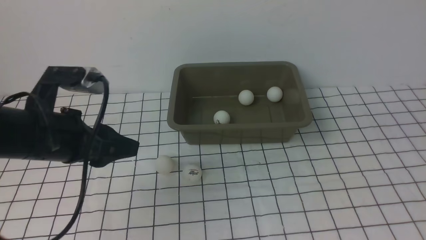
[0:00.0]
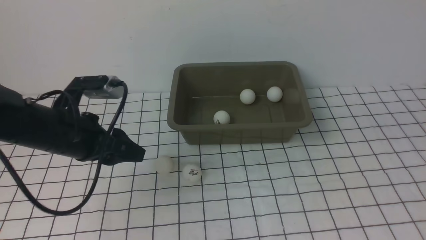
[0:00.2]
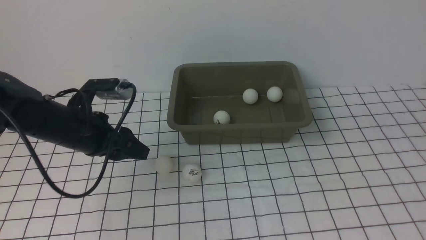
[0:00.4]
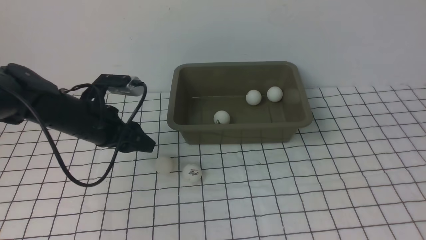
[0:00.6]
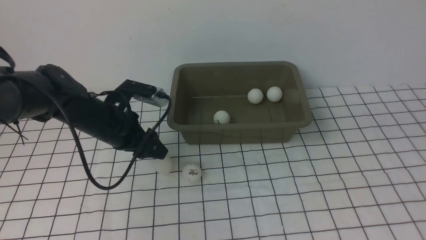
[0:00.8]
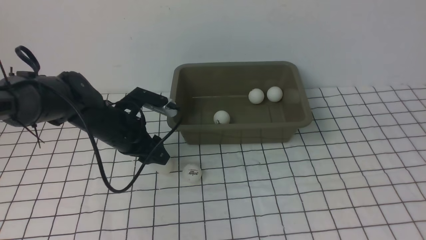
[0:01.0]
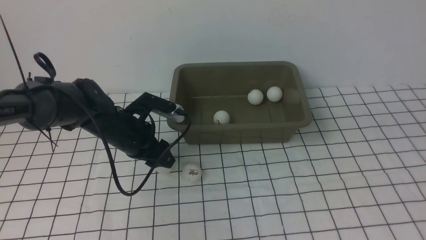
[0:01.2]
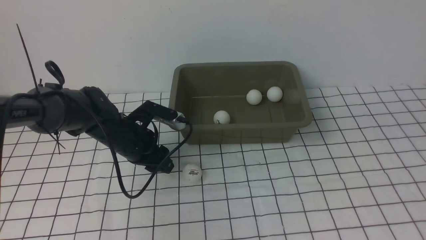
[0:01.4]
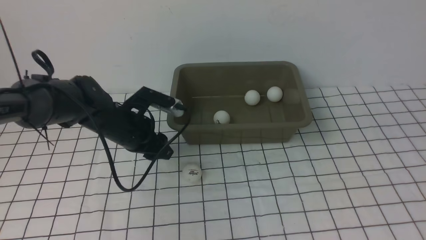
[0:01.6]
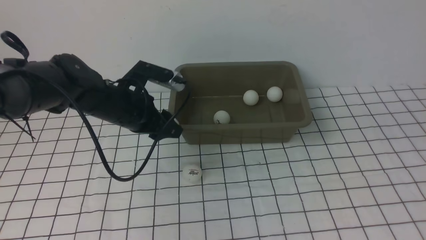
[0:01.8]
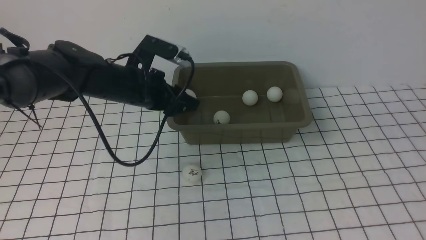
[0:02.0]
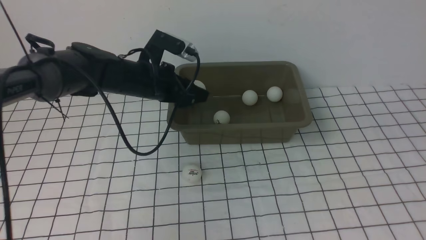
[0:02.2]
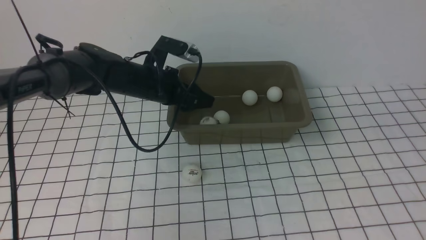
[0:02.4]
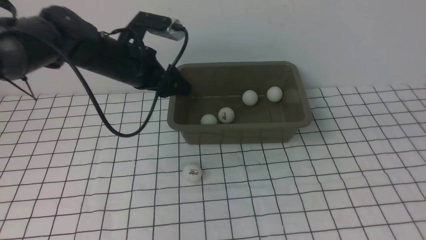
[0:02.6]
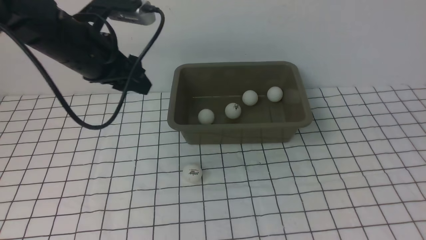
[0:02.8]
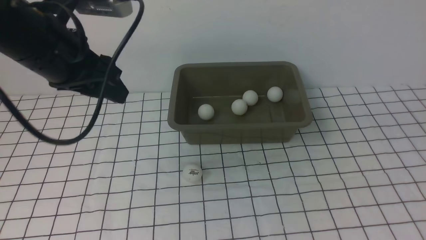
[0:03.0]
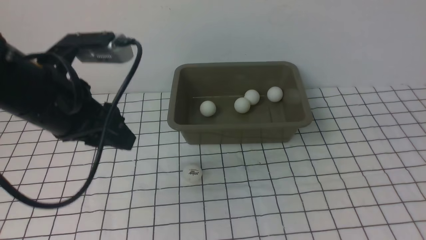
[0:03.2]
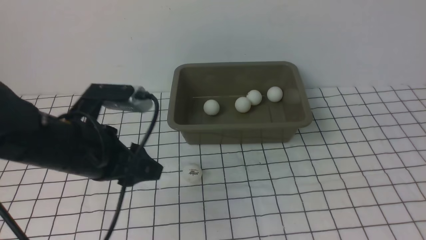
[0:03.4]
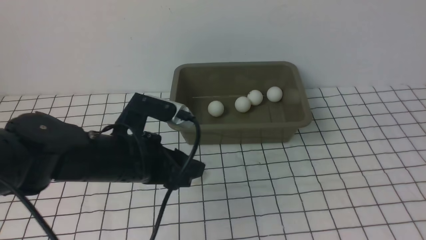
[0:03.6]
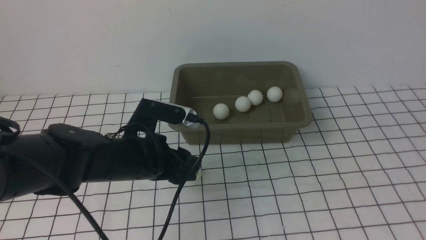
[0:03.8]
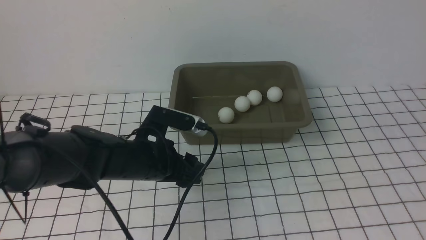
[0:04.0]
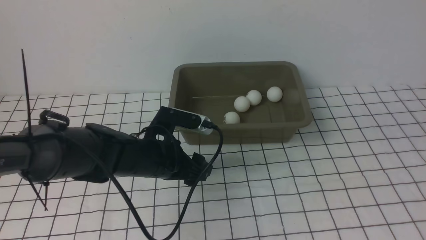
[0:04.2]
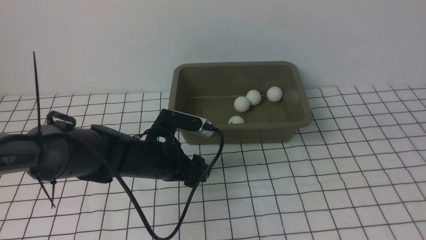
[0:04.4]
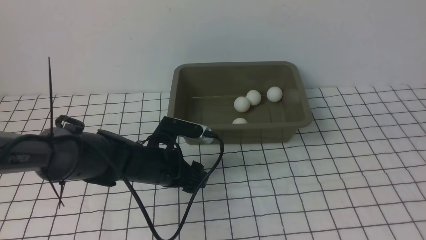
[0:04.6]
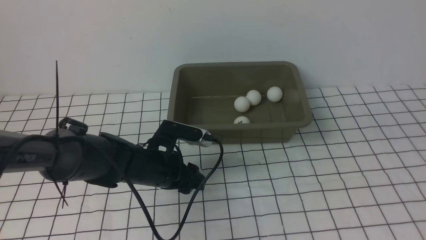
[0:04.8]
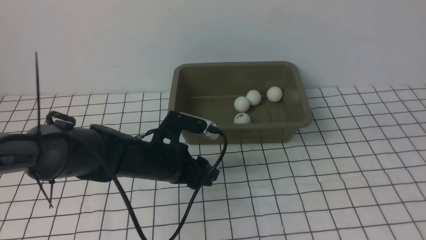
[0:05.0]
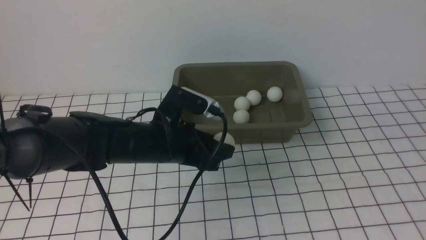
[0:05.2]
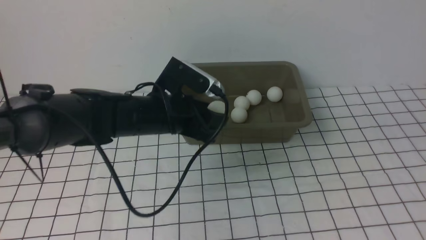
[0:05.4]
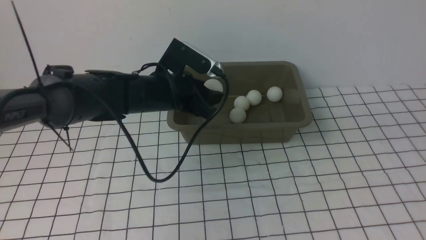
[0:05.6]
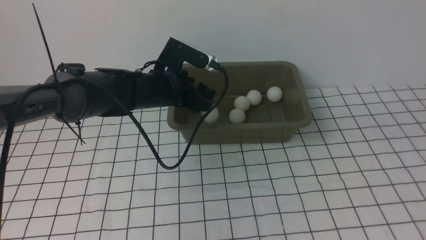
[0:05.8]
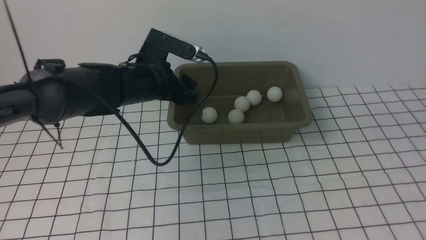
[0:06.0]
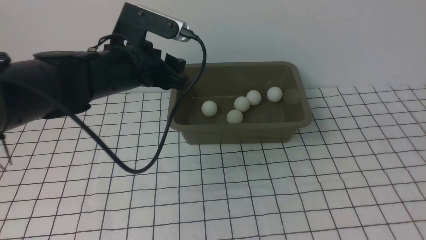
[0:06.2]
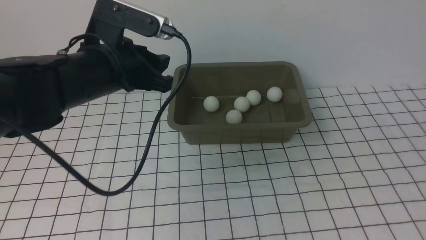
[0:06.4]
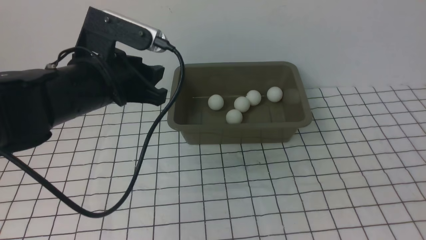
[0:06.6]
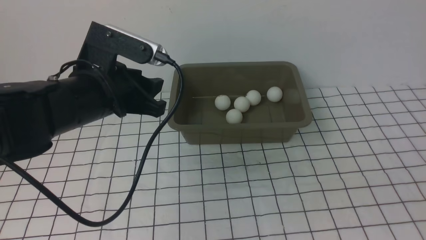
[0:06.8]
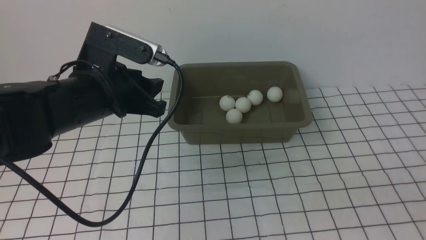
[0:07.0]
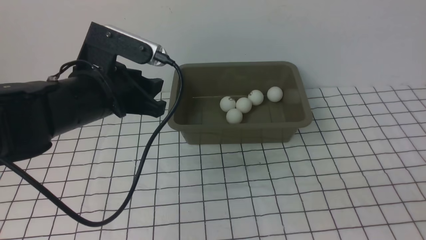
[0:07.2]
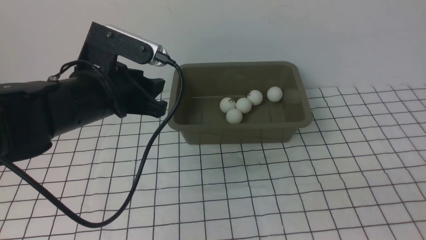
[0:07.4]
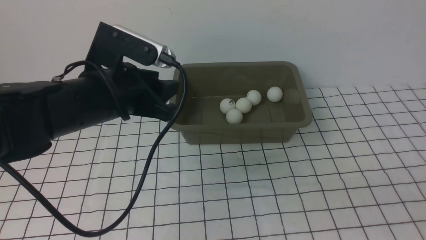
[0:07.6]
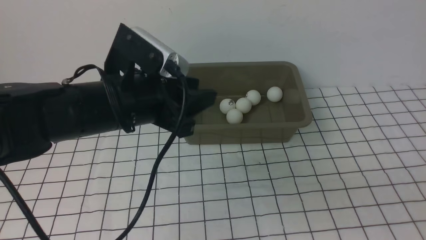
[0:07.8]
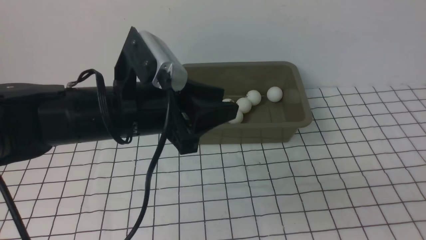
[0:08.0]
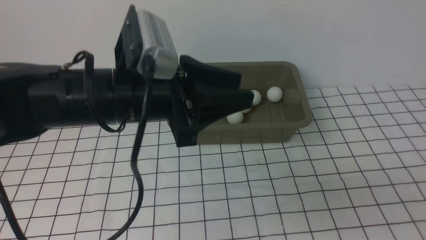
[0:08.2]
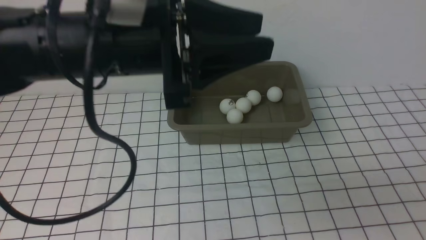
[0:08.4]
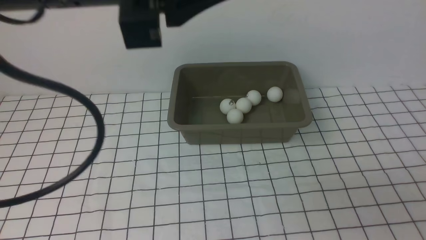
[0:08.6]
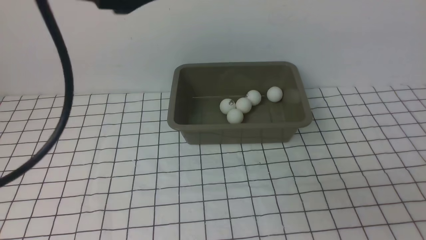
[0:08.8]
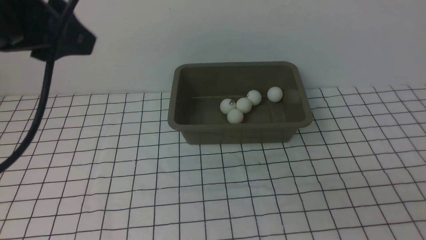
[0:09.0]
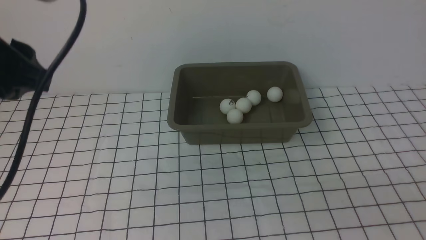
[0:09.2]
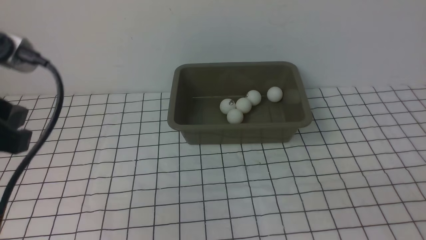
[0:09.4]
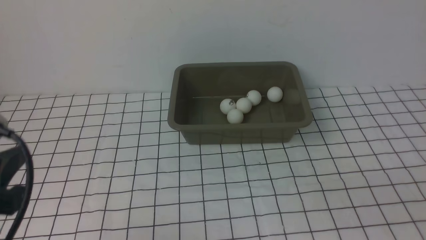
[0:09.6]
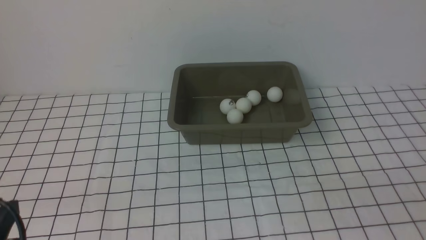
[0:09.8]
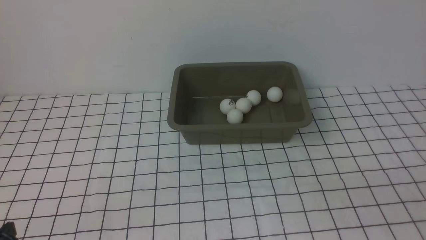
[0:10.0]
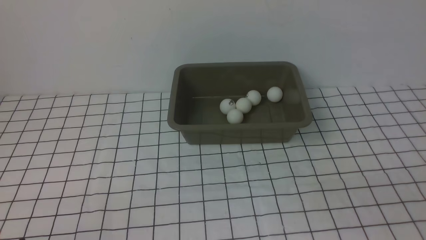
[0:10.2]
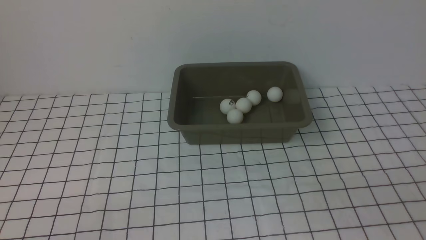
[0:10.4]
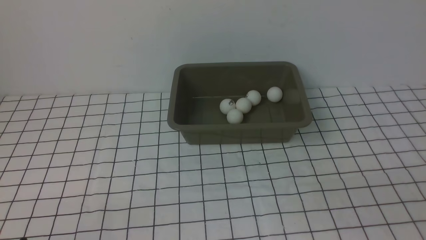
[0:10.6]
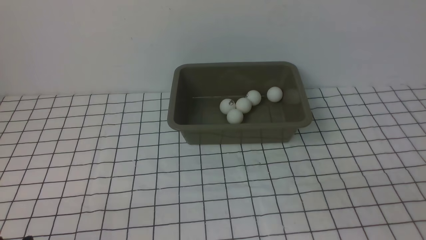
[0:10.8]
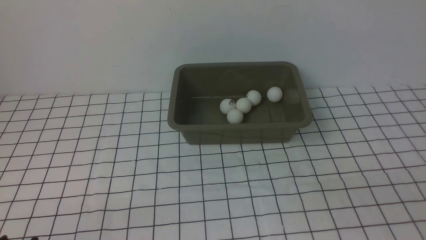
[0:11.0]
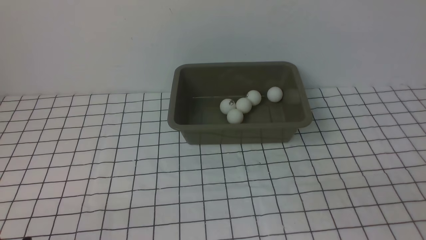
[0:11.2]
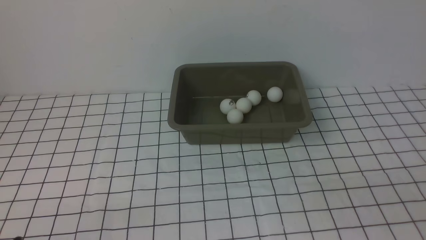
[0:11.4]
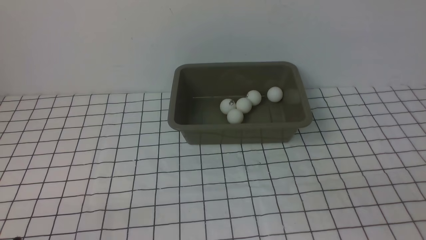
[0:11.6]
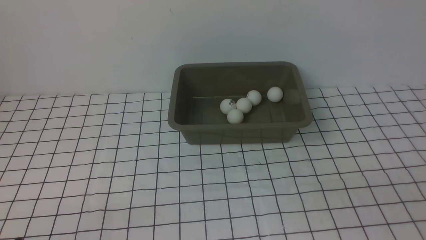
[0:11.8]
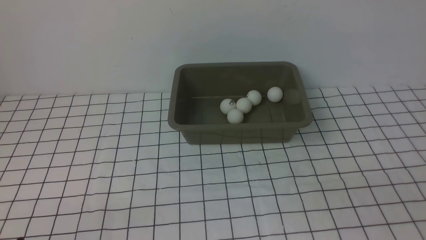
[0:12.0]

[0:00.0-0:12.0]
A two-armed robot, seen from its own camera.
Step, 0:00.0 to 0:01.8: use the left arm to clamp the table tennis ball closest to it.
Step, 0:02.0 to 0:02.4: use the left arm to put the table tennis ball into the box.
Step, 0:02.6 to 0:05.0: use the left arm to clamp the table tennis ball closest to it.
Step, 0:05.2 to 0:05.8: use the left arm to put the table tennis ball into the box.
0:00.0 to 0:01.6: The left gripper moves forward, to the right and downward, roughly 15 cm, and closes up.
0:01.6 to 0:03.0: The left gripper is displaced upward and backward by approximately 15 cm, and opens, then closes once more.
0:03.0 to 0:04.4: The left gripper heads downward and to the right, covering approximately 20 cm, and opens up.
0:04.4 to 0:06.0: The left gripper travels upward and forward by about 15 cm, and closes, then opens again.
0:06.0 to 0:07.6: The right gripper is displaced downward by approximately 20 cm. Meanwhile the left gripper heads backward, covering some 10 cm, and closes.
0:07.6 to 0:09.0: The left gripper goes some 15 cm upward and backward.
0:09.0 to 0:10.4: The left gripper goes about 30 cm downward and backward.

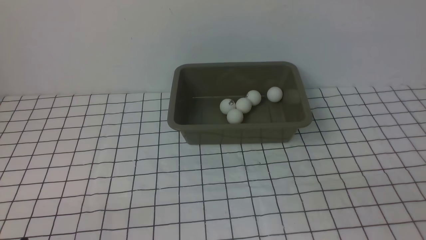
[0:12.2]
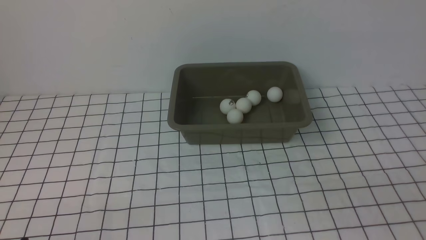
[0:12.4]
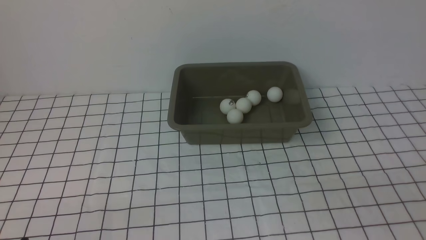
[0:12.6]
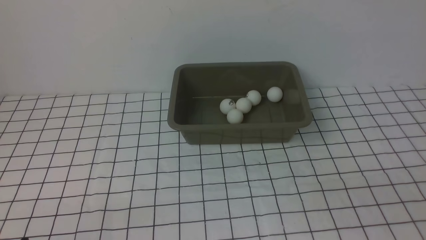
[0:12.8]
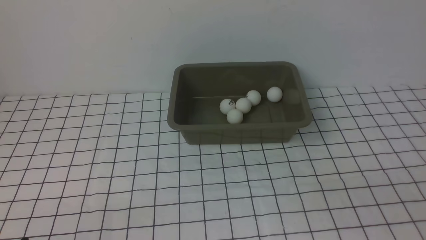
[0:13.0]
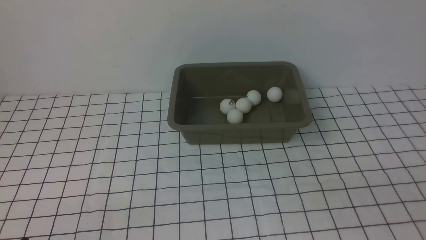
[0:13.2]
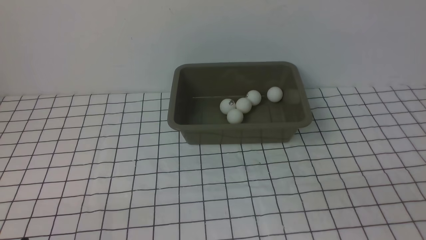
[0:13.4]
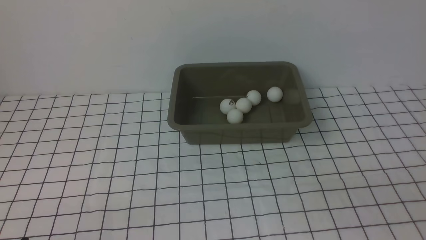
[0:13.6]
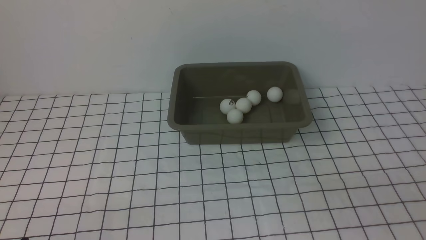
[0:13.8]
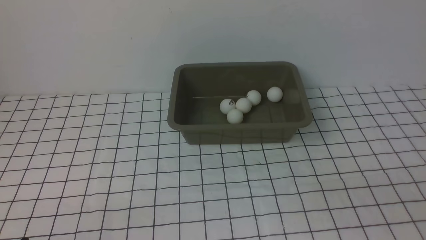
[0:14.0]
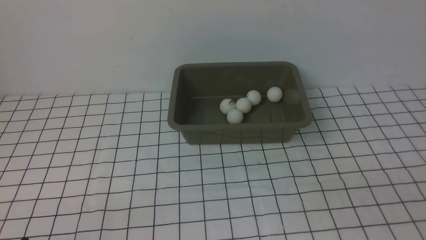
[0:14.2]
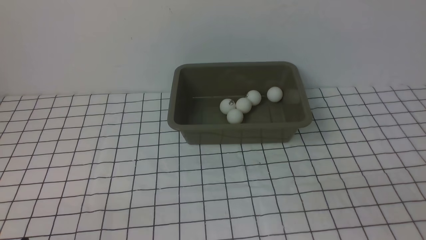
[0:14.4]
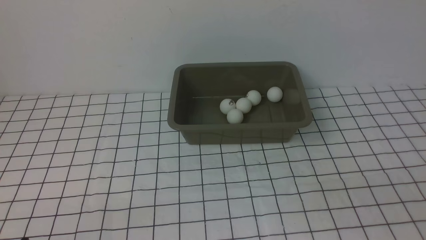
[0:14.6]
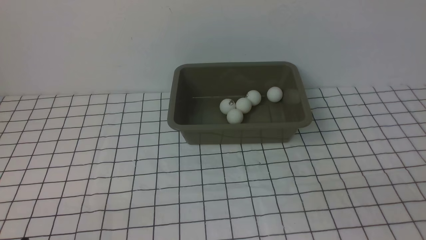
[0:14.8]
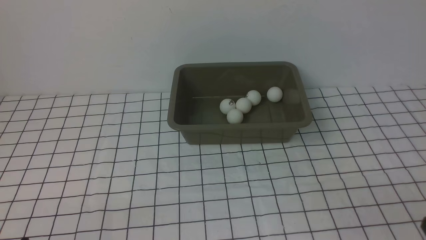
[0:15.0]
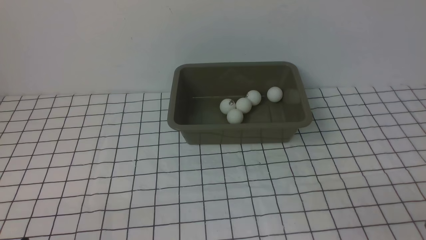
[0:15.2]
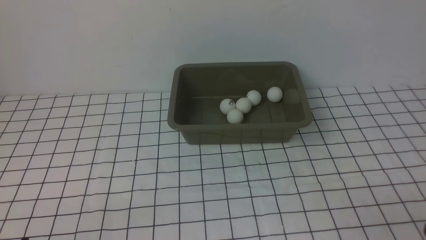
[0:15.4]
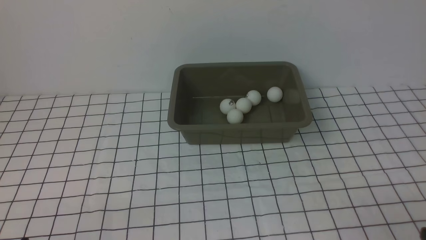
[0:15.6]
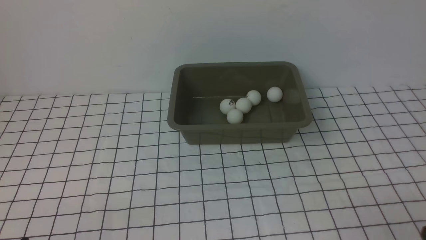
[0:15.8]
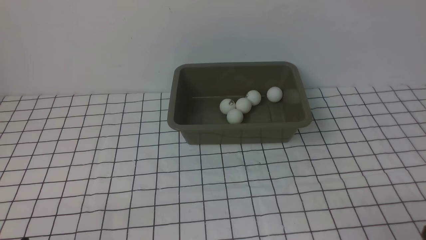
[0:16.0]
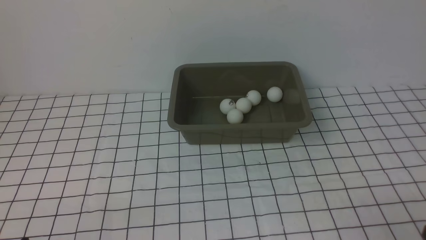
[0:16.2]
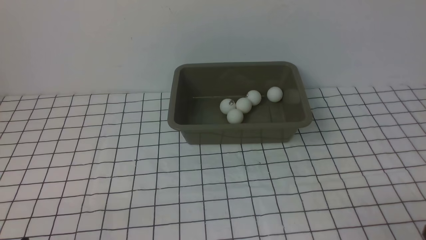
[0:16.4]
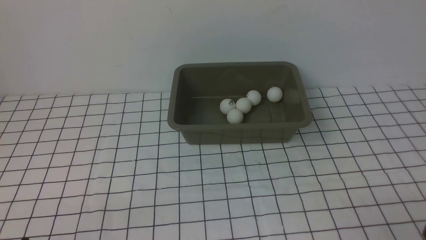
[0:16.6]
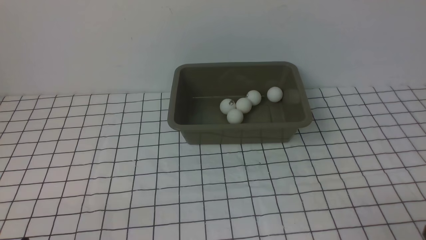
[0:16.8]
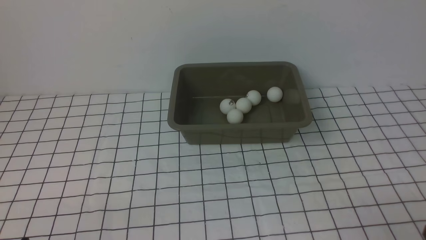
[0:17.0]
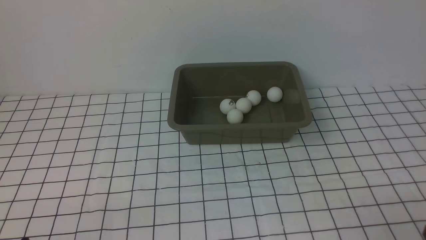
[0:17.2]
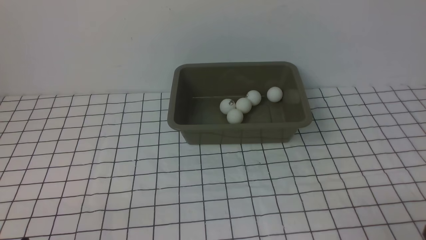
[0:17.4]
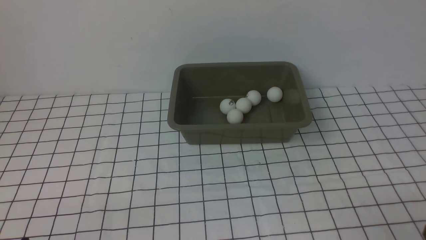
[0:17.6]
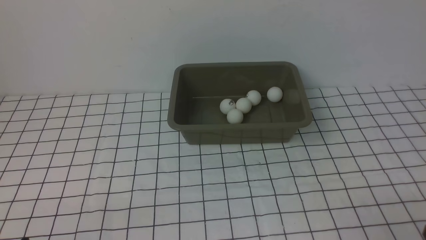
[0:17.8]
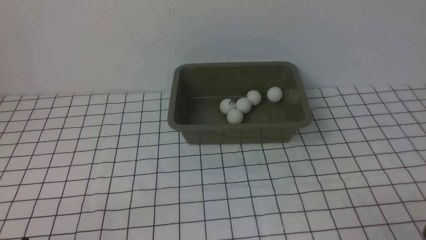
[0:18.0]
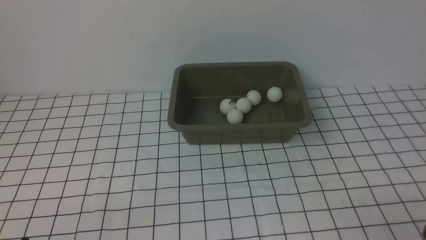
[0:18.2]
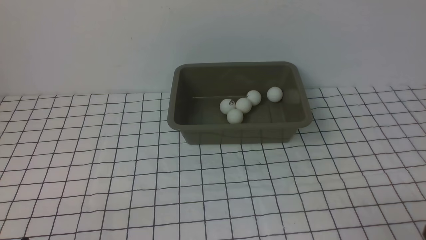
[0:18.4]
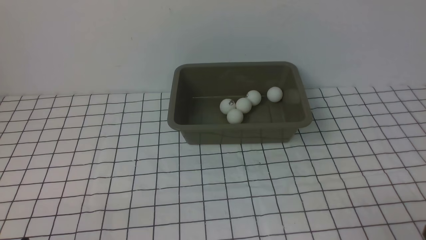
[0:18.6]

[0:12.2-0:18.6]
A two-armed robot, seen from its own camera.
0:12.2 to 0:13.8: Both grippers stay put.
0:15.4 to 0:18.6: Neither gripper changes place.
